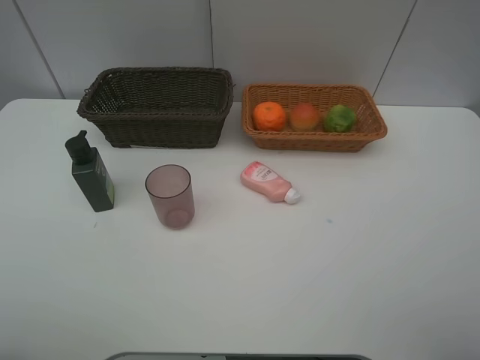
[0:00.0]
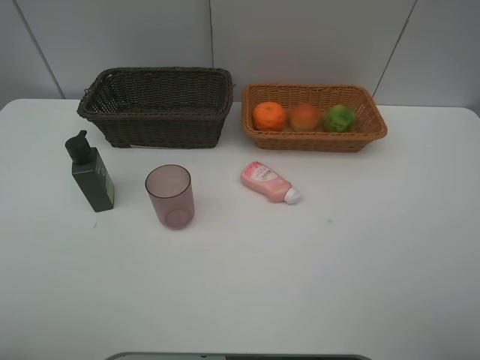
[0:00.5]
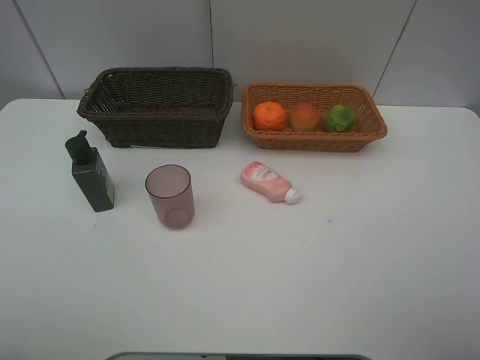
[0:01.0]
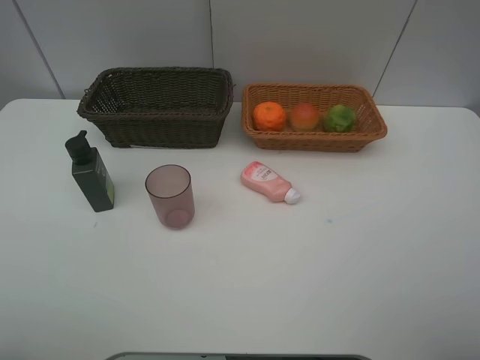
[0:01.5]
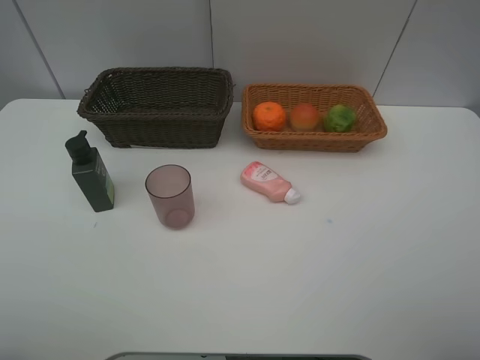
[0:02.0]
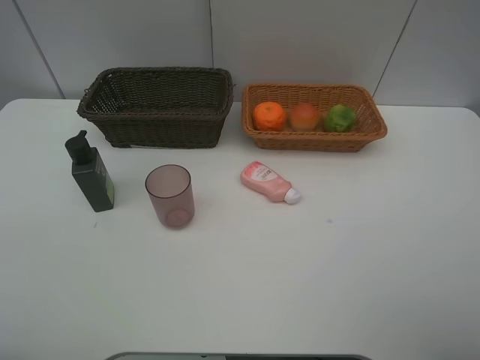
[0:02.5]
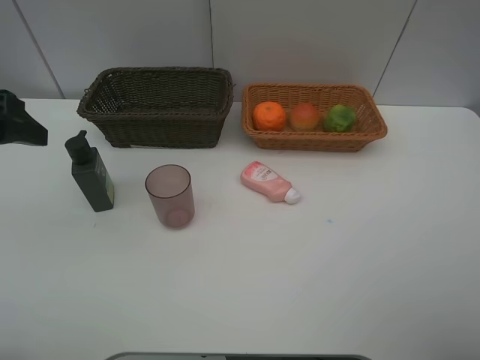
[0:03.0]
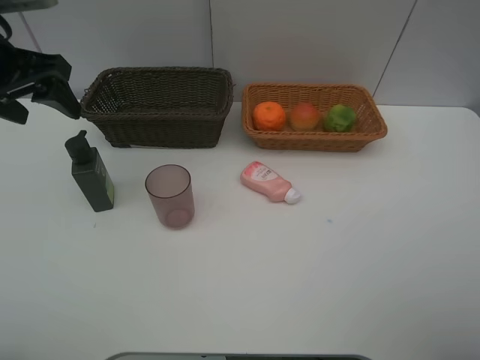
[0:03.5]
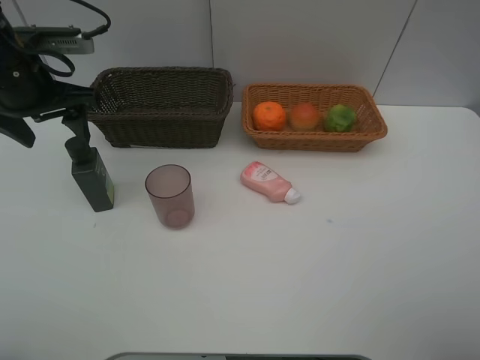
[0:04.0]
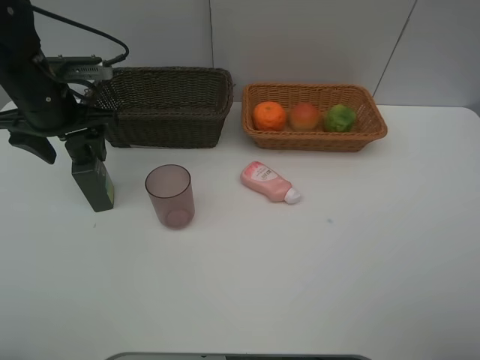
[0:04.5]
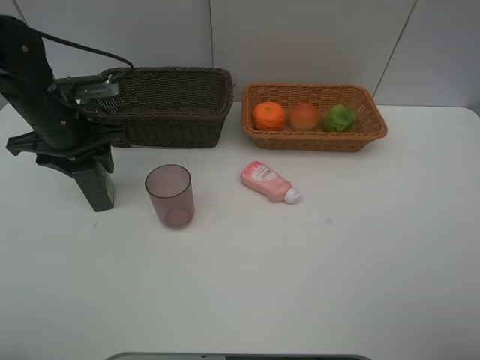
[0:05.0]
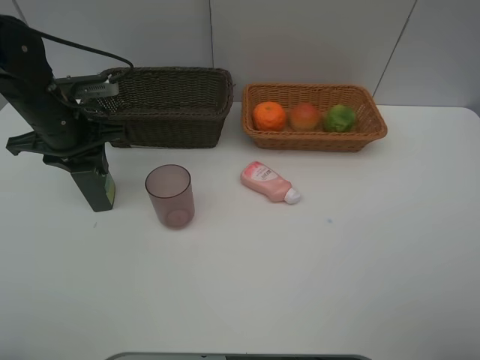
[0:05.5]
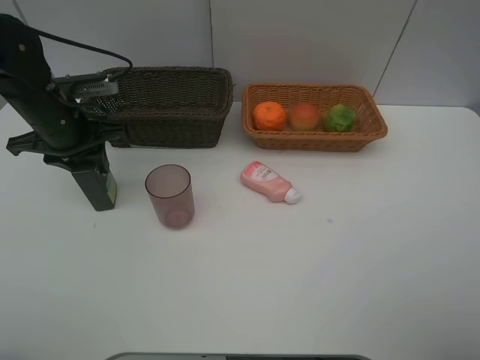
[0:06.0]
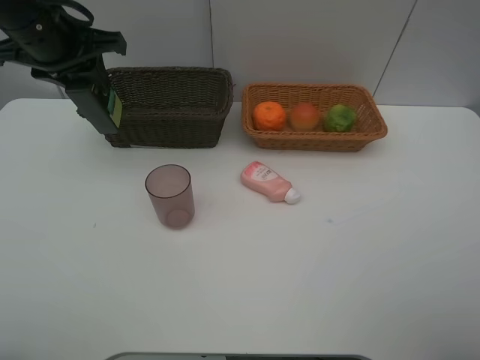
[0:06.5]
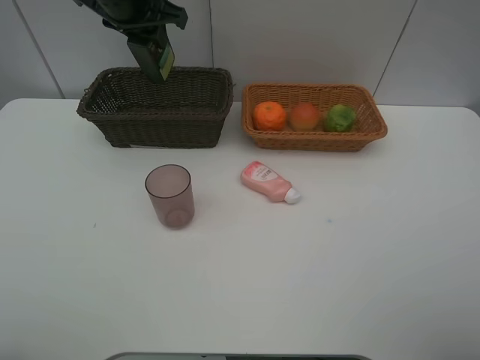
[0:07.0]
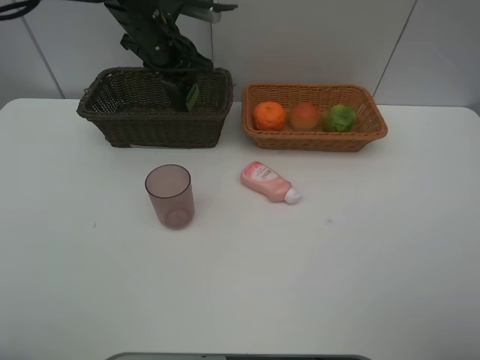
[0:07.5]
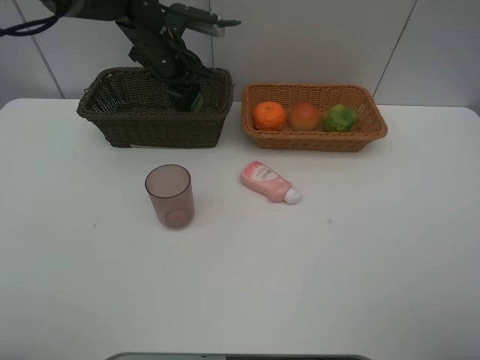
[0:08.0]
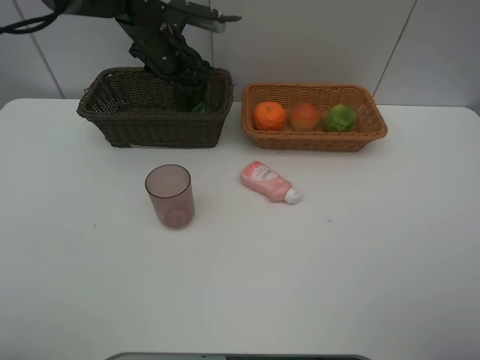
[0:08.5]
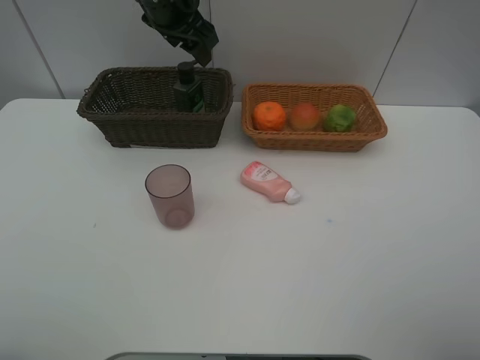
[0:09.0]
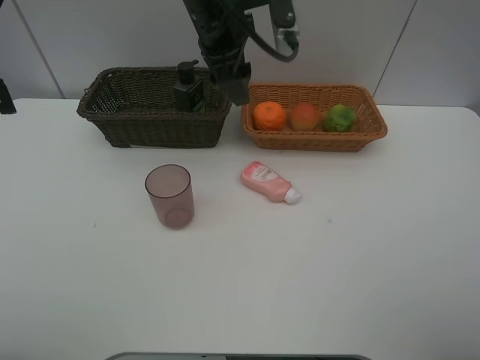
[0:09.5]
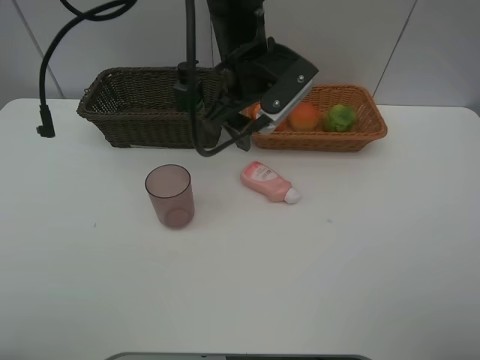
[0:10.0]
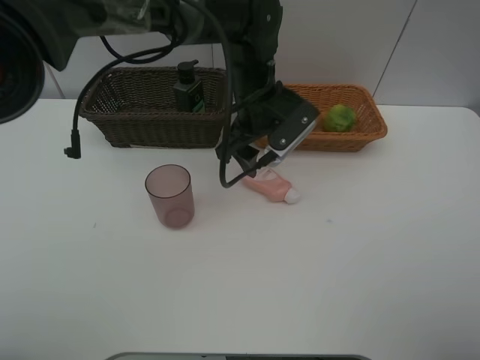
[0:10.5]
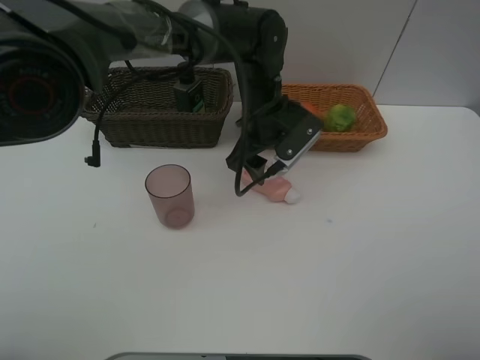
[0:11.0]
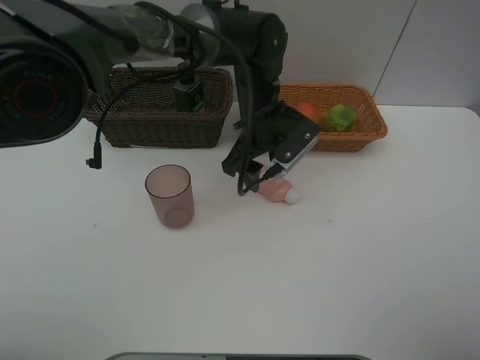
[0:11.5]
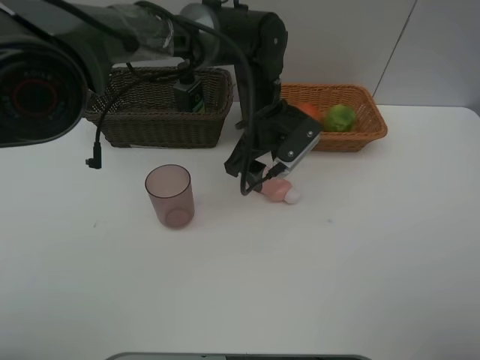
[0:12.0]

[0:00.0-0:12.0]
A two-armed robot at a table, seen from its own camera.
Task of the whole recording: place multiple objects separately in different baskets.
Step, 0:00.0 to 0:06.0: Pick up the facial cleanser with left gripper.
Step, 0:06.5 to 0:08.5: Place the facial cleanser in the dark basket with left gripper.
0:02.0 to 0:04.0: The left gripper heads forward, covering roughly 30 cm.
0:04.0 to 0:06.0: The left gripper moves downward, about 5 cm, and closes.
0:06.0 to 0:08.0: The left gripper shifts approximately 20 cm forward and to the right.
0:08.0 to 0:10.0: The left gripper moves to the right and backward, approximately 15 cm, and opens.
0:10.0 to 0:12.0: The left gripper is displaced downward by about 10 cm.

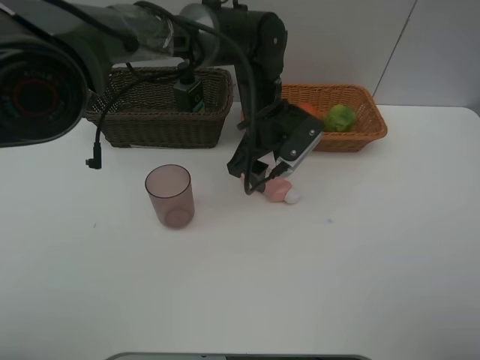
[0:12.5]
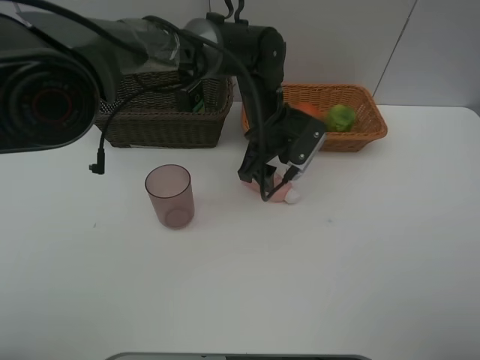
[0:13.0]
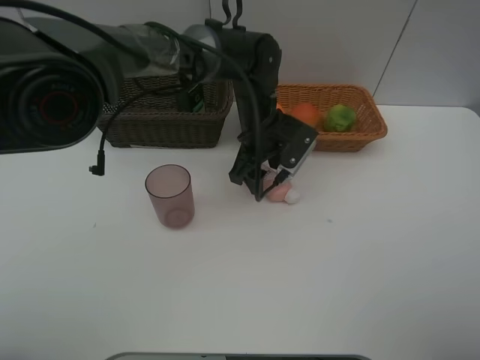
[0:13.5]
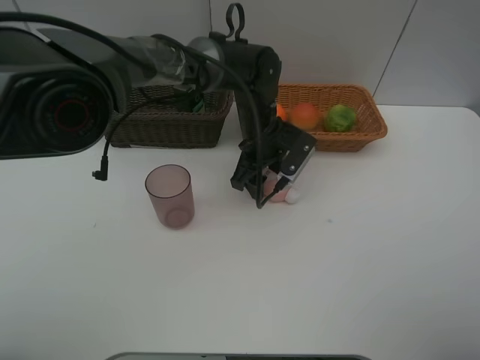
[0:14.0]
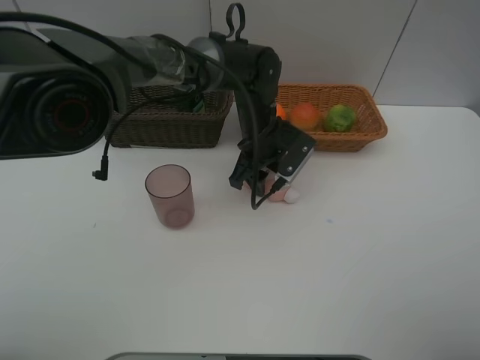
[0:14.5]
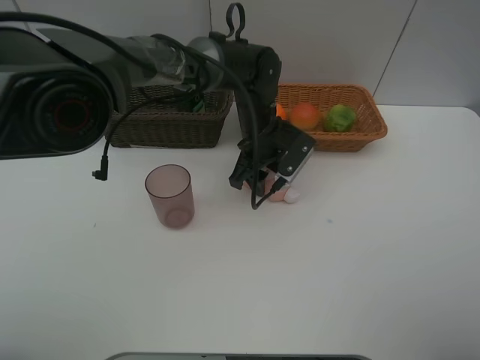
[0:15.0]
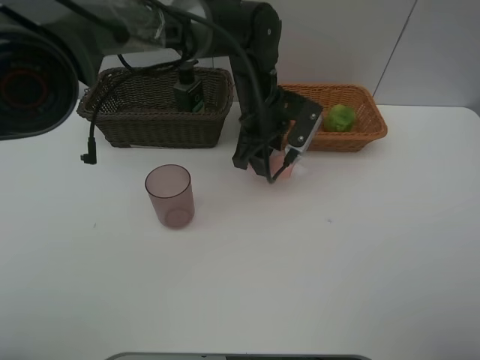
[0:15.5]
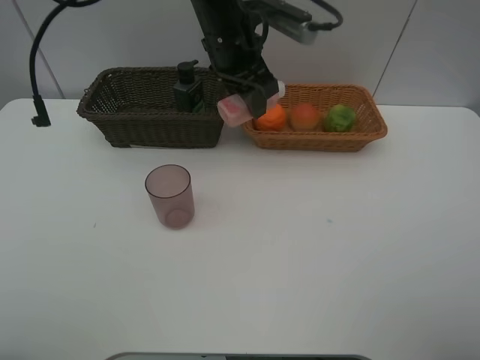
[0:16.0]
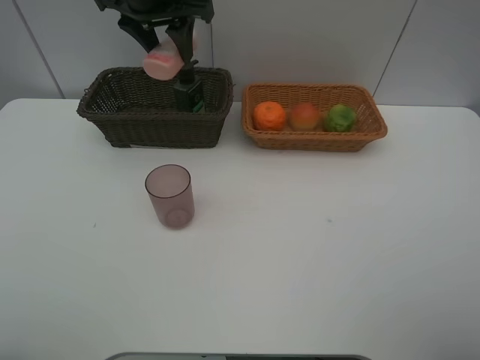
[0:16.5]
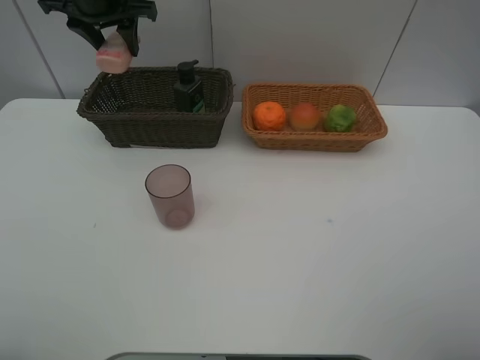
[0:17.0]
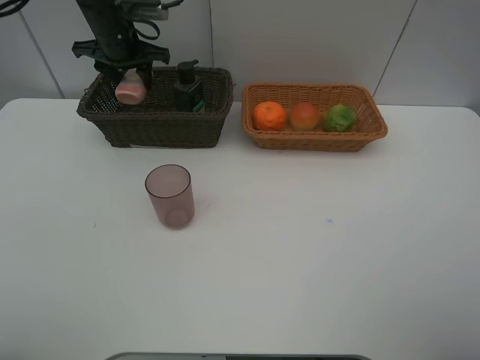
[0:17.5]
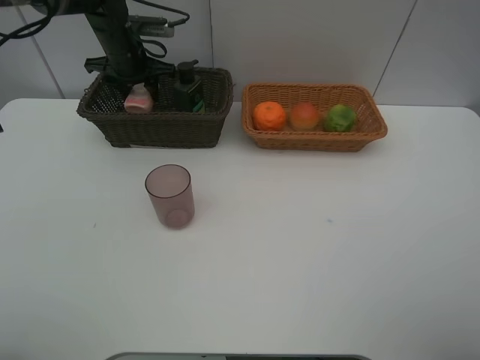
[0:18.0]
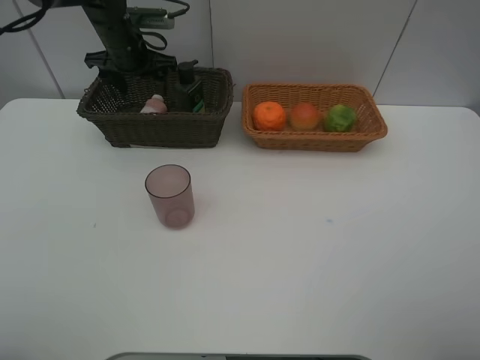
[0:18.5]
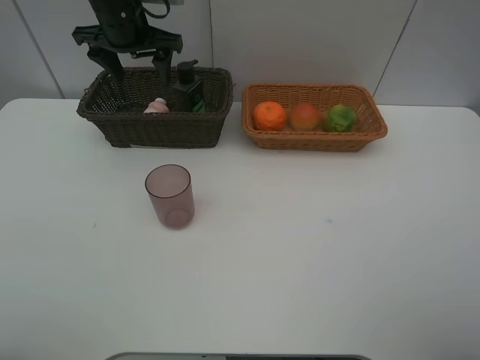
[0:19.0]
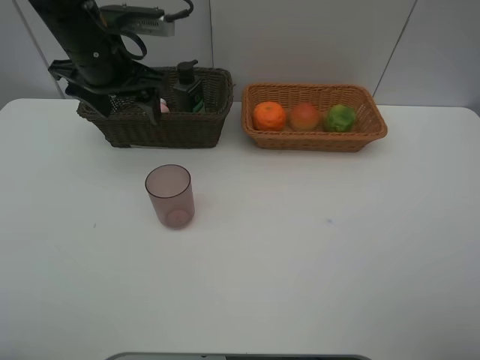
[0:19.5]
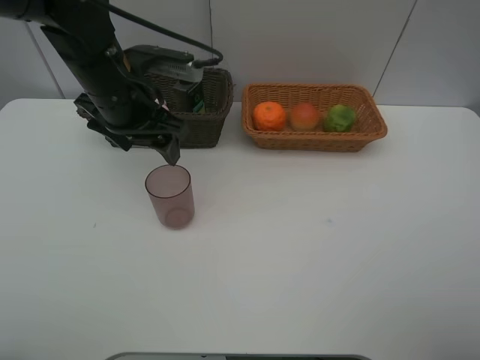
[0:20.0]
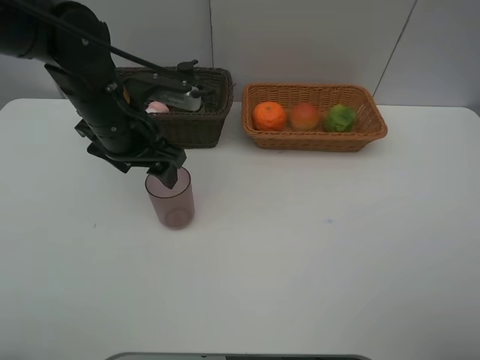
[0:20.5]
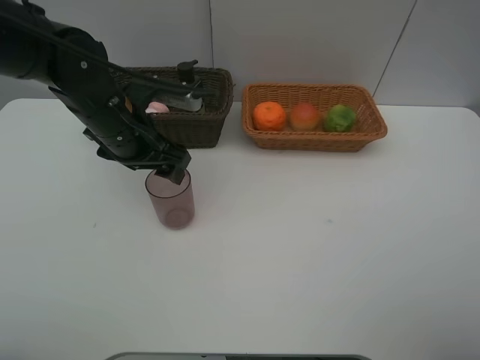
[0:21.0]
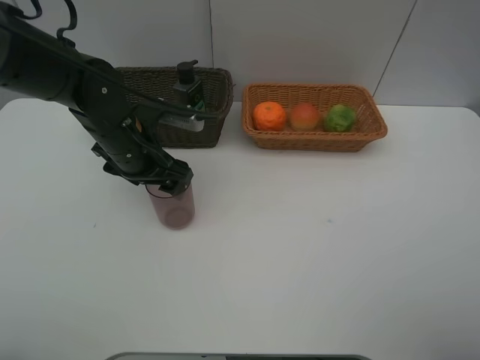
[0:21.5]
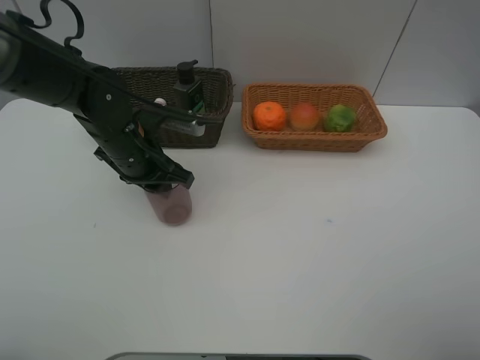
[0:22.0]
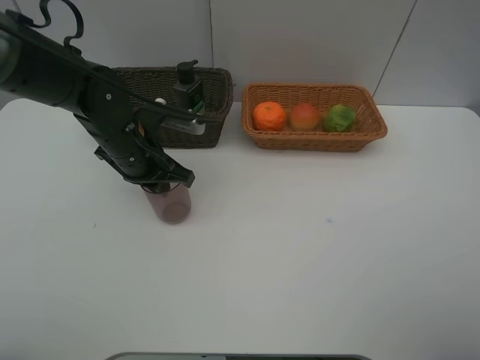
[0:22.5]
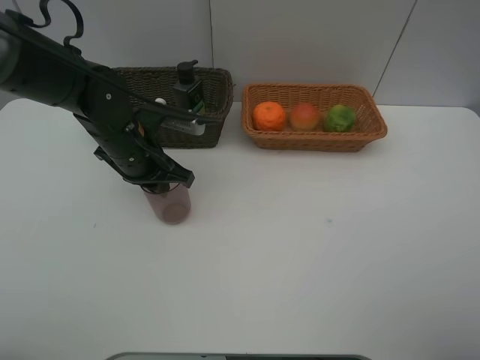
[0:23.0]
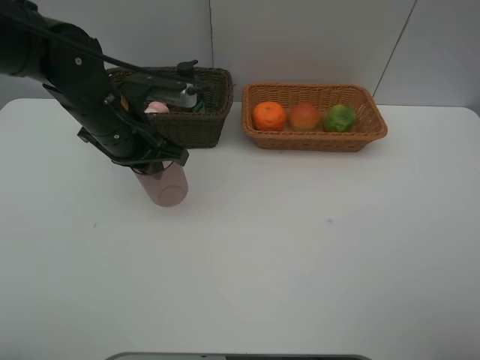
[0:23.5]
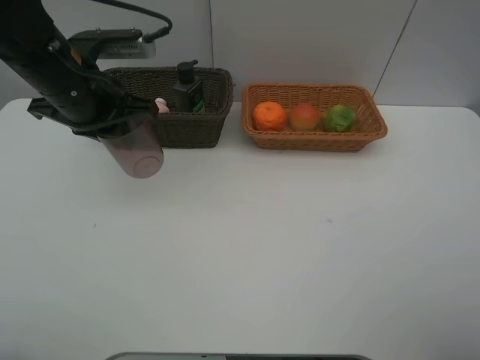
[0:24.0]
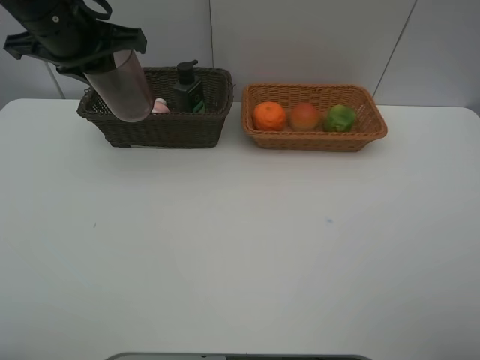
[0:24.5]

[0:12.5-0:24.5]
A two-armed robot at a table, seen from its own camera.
Task of the whole recording: place multiple objects separately in different baskets.
Step, 0:12.5 to 0:15.5: Pick up the laundry detergent with left gripper.
Step, 0:16.0 to 0:18.5: Place the laundry detergent in the dark basket with left gripper.
Step, 0:19.0 to 0:23.5: Pick up the brown cup with left gripper.
0:12.5 to 0:14.5: The grippers make only small movements.
0:14.5 to 0:16.5: The left gripper heads upward and to the left, covering about 25 cm.
0:16.5 to 0:18.5: The left gripper is displaced downward, forward and to the left by some 15 cm, and opens.
0:18.5 to 0:20.5: The left gripper travels backward by roughly 20 cm.
0:20.5 to 0:22.5: The left gripper moves downward, roughly 5 cm, and closes.
0:22.5 to 0:24.5: The left gripper travels upward by some 15 cm.

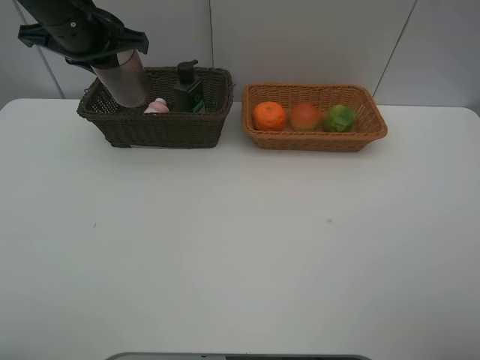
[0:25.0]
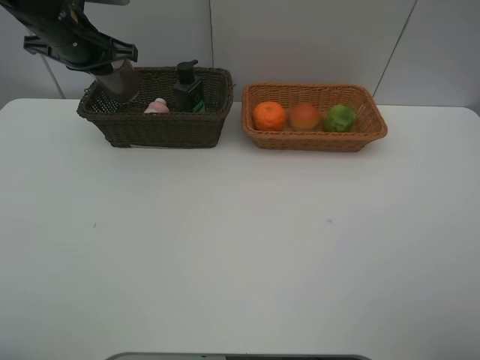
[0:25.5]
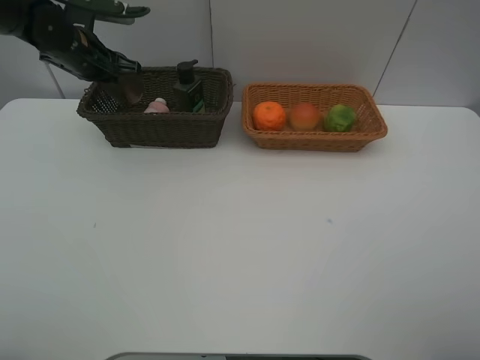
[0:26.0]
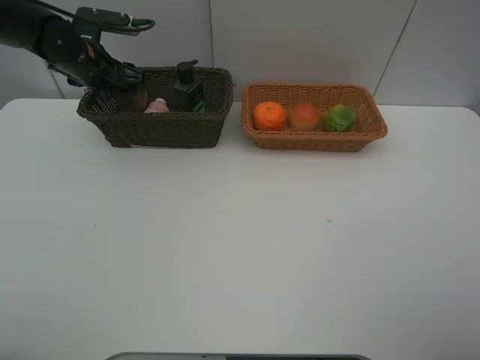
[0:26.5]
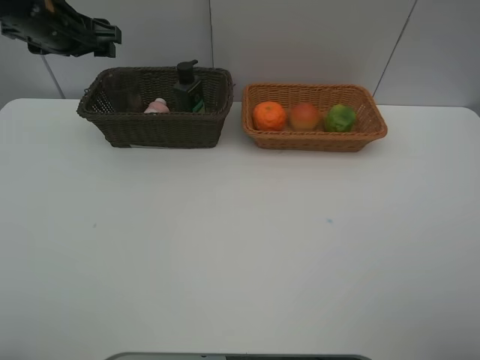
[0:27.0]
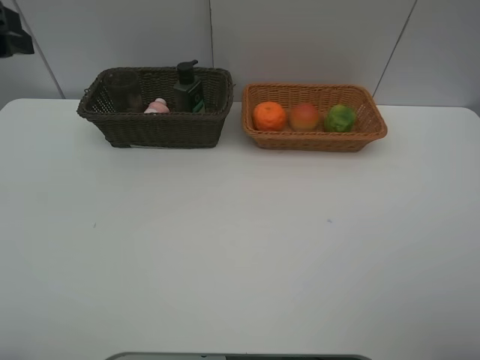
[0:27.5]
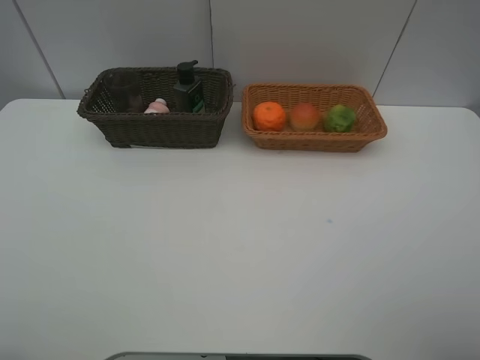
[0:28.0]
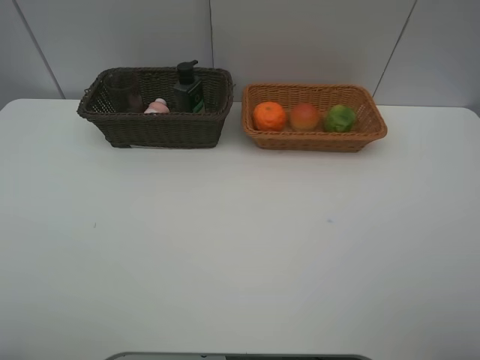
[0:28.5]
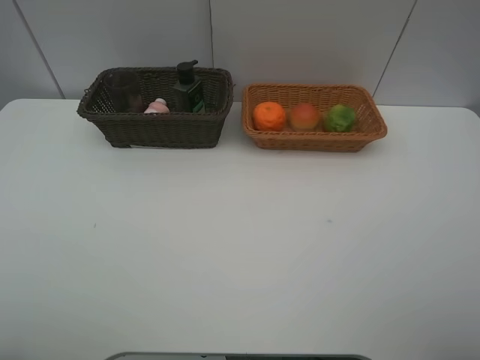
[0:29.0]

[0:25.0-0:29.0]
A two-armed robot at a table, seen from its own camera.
Task of the whole recording: place multiple objects separately in different baskets.
Step, 0:25.0 to 0:26.5: Place the brown cup in the dark basket with left gripper.
0:25.0 to 0:27.0: The left gripper goes about 5 cm to the left, travels downward and back again, about 10 cm each way, and opens its fingers.
0:27.0 to 0:29.0: The left gripper is displaced backward by approximately 40 cm.
